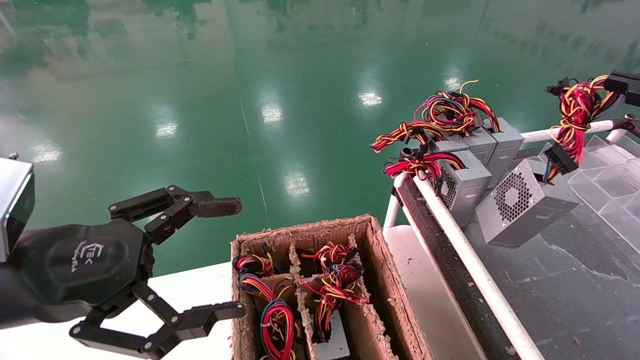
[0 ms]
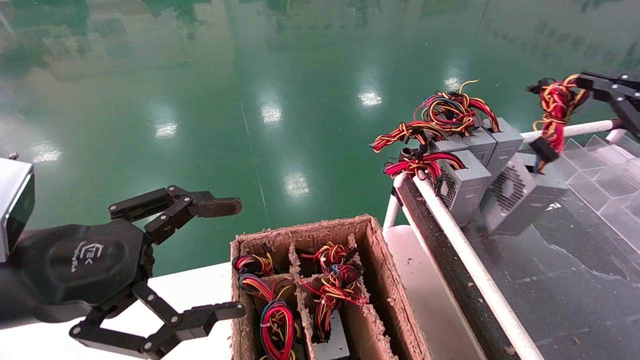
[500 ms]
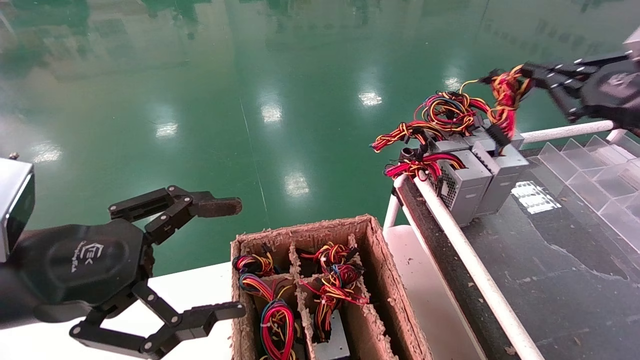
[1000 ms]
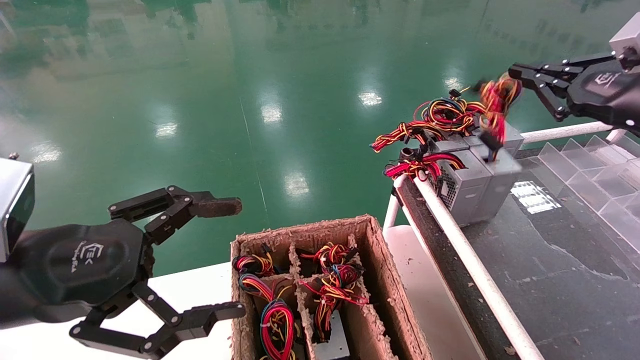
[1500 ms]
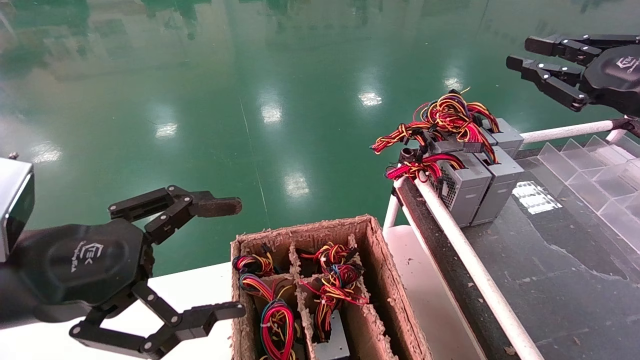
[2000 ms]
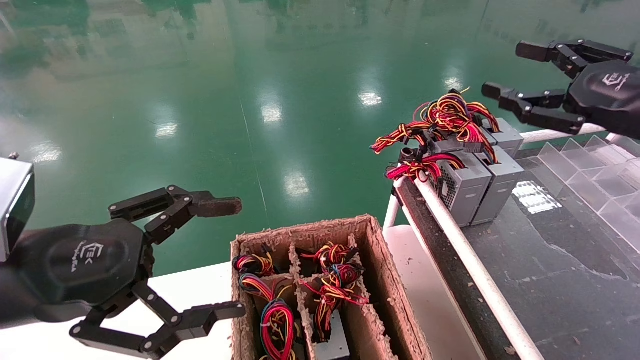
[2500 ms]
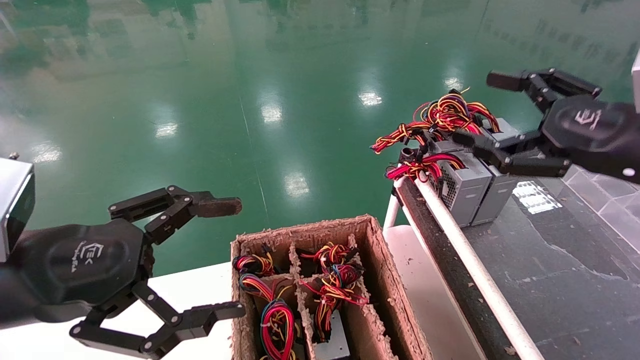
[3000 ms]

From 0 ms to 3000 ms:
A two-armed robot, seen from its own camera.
From 0 ms to 1500 ms: The right gripper shifts roughly 10 cm forward and to the left.
From 1500 ms to 3000 ms: The right gripper goes roughly 10 cm backward and to the left, and opens.
